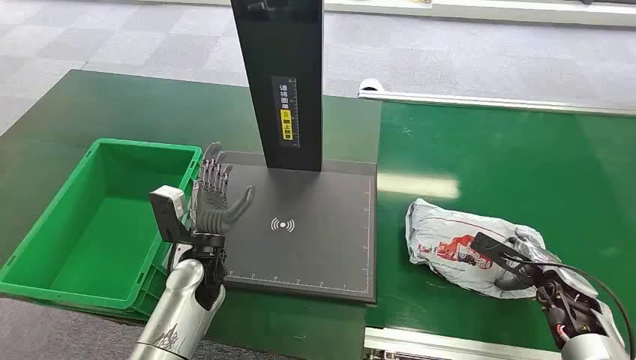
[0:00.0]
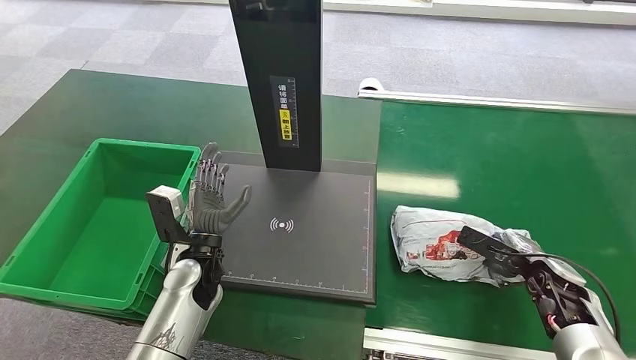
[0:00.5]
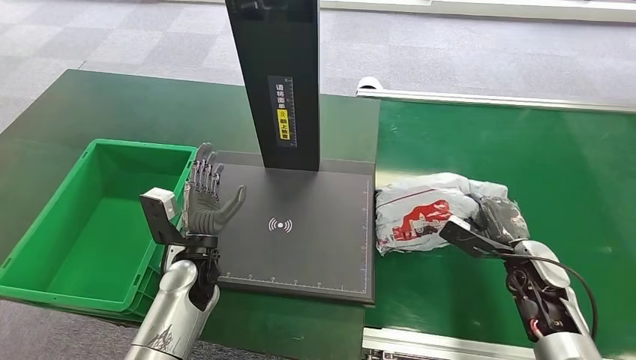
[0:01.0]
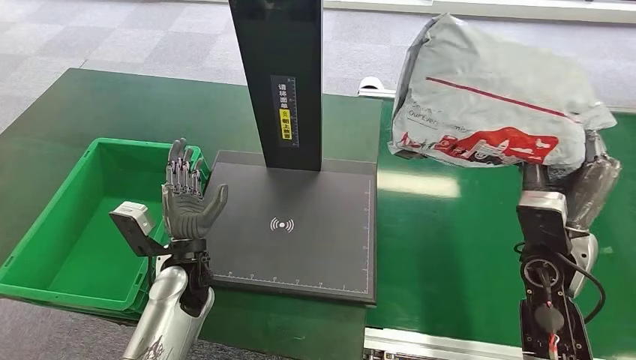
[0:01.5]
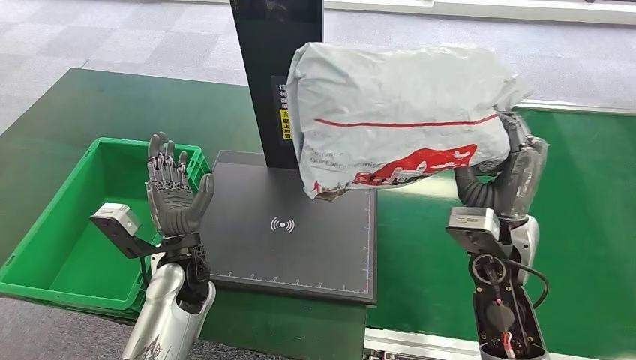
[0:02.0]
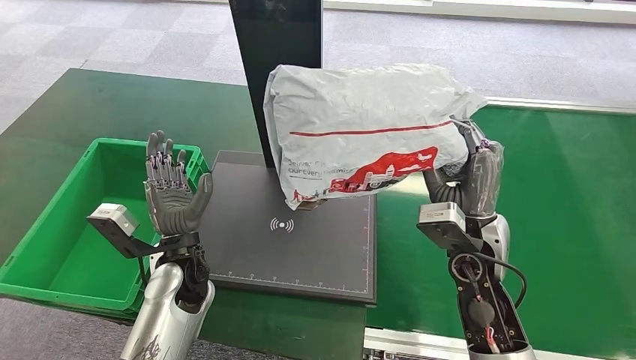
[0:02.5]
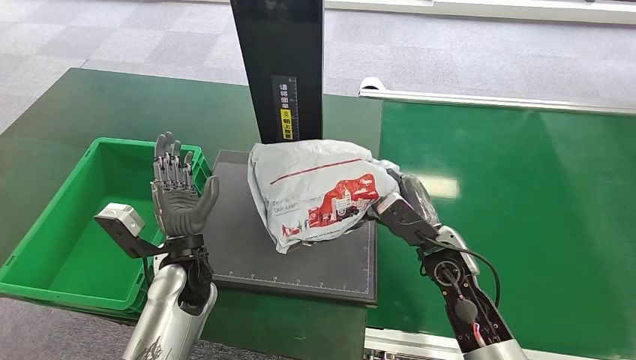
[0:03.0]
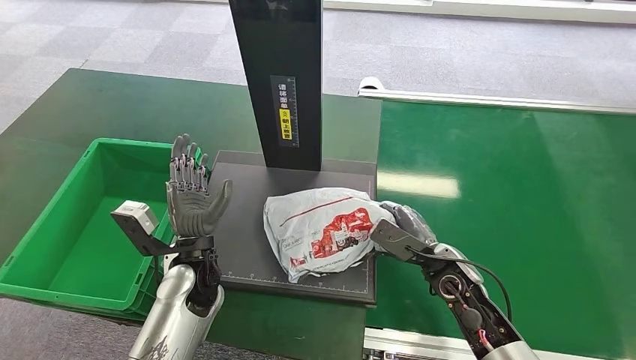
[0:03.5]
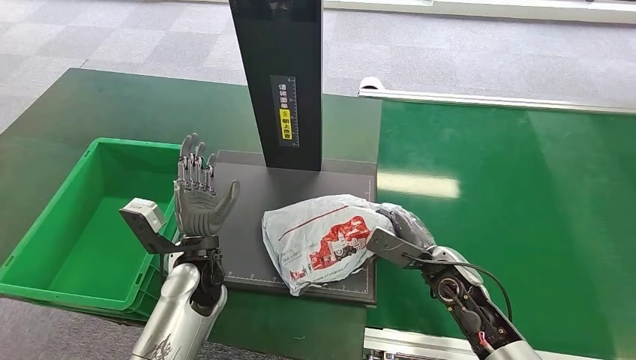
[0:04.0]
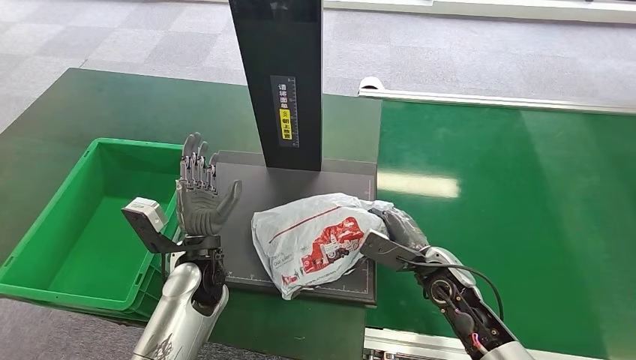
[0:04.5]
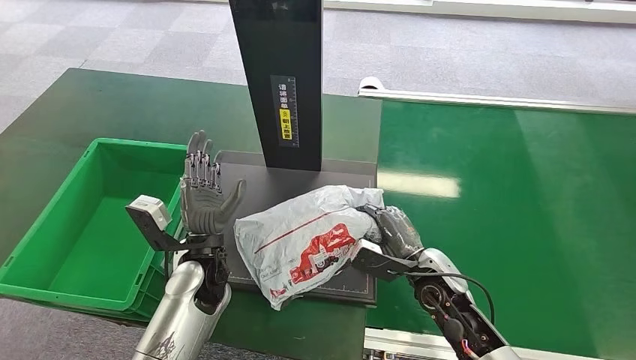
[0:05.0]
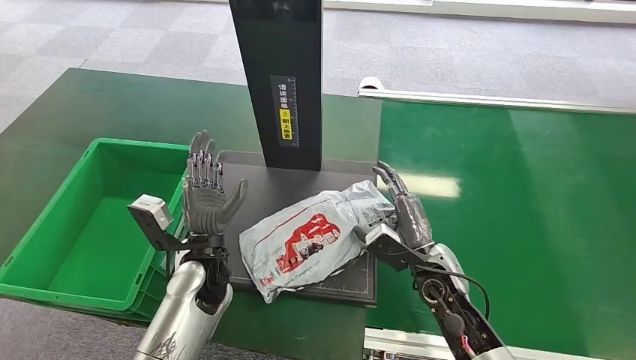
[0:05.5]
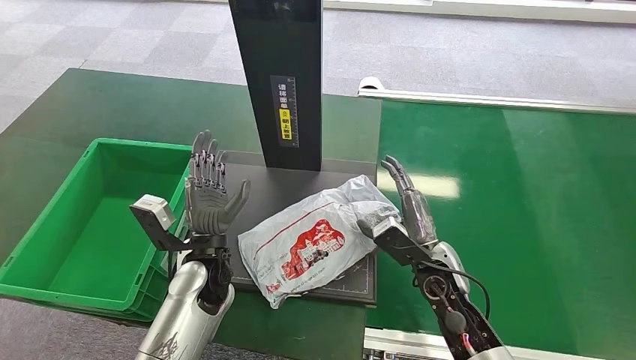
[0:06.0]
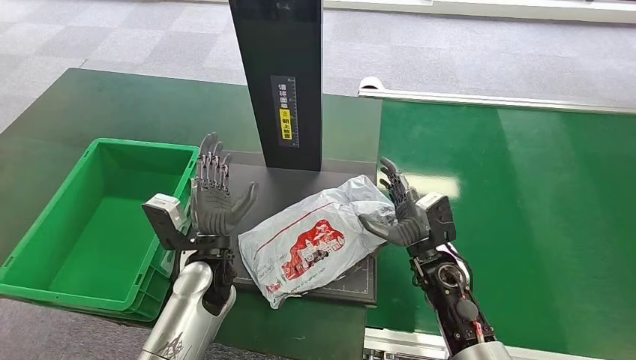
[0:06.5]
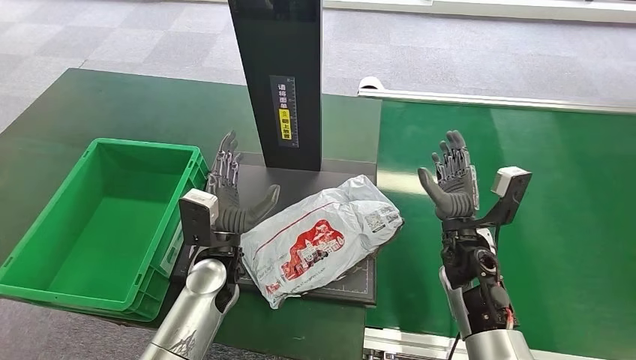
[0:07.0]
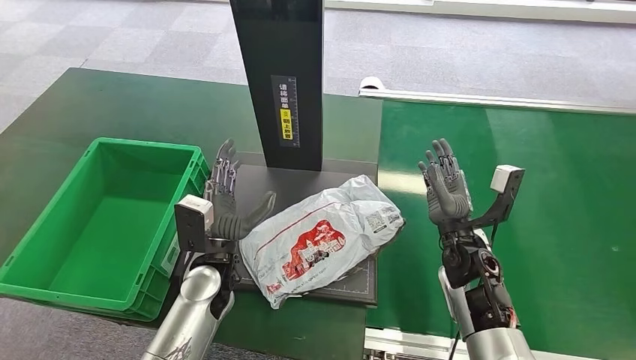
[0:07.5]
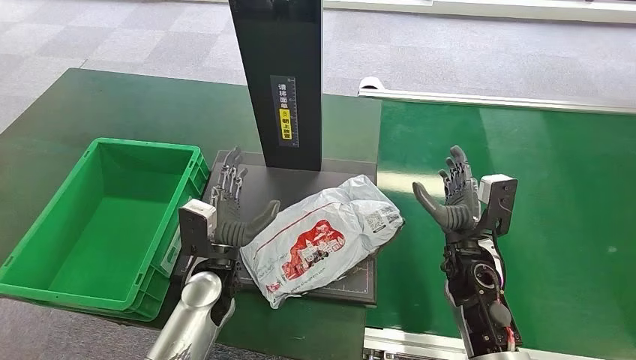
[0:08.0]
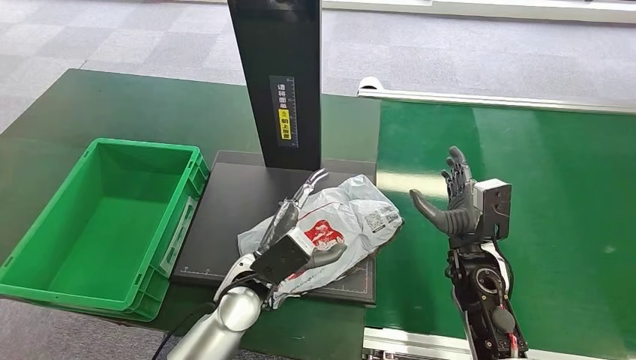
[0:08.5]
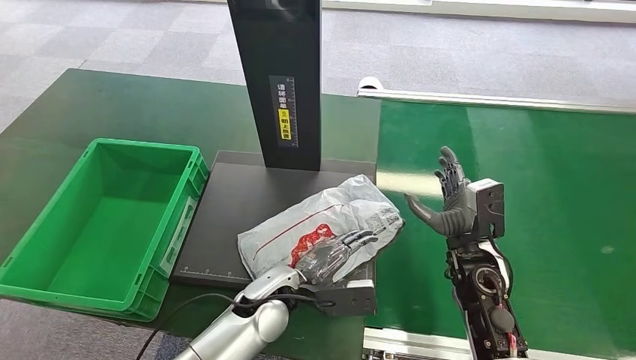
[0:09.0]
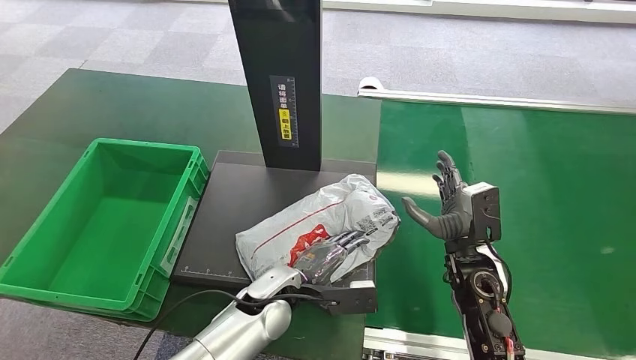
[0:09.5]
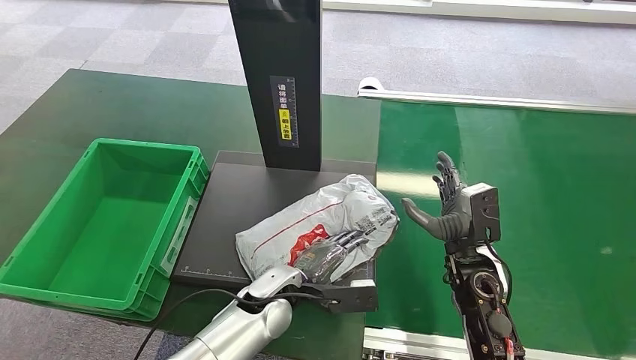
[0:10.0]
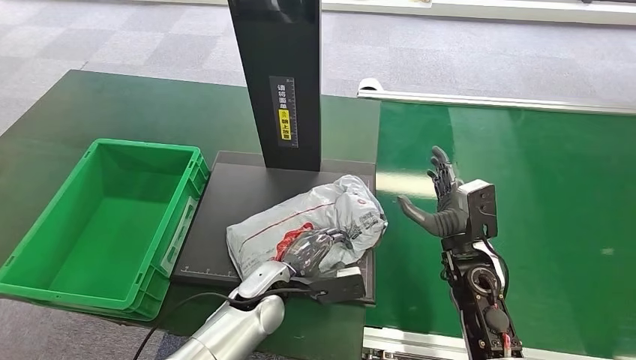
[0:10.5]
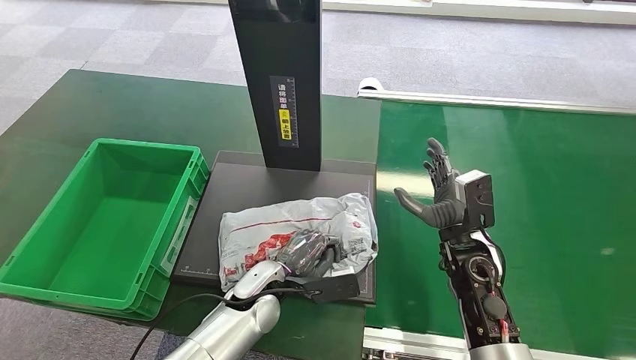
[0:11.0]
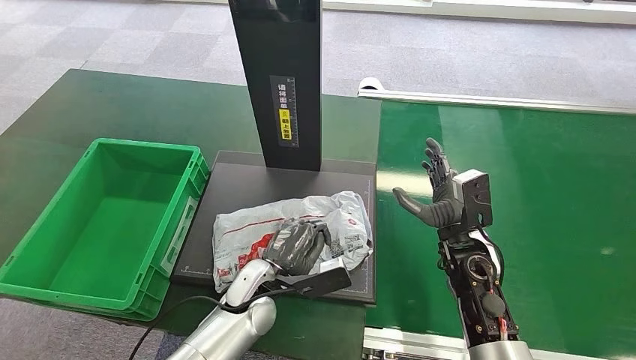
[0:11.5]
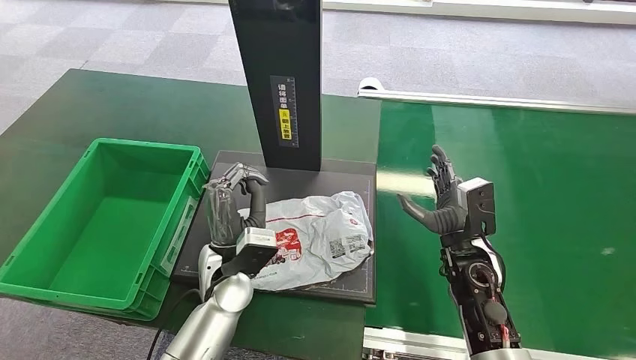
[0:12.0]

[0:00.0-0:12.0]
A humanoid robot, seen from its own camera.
Step, 0:00.0 to 0:01.5: Pick up the package from the conveyor belt.
Step, 0:02.0 to 0:07.0: Place the package onto the inbound machine.
0:08.0 to 0:10.0: The left hand heads to the right, covering about 10 cm.
0:10.0 to 0:12.0: The left hand shifts roughly 5 cm upward.

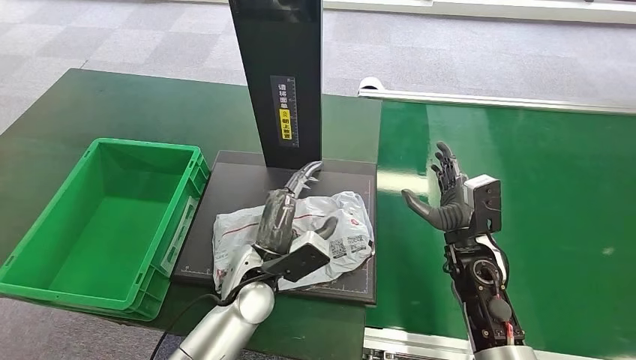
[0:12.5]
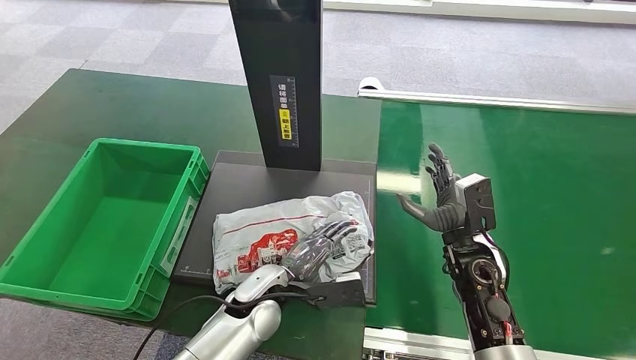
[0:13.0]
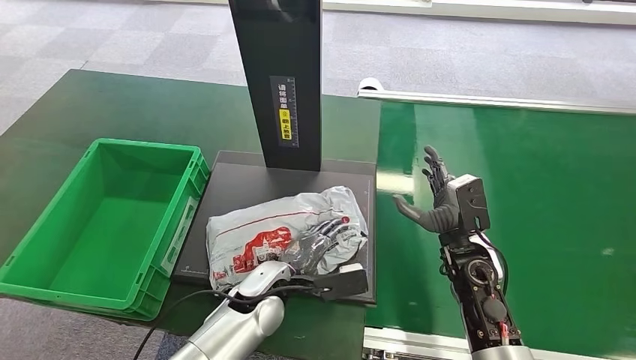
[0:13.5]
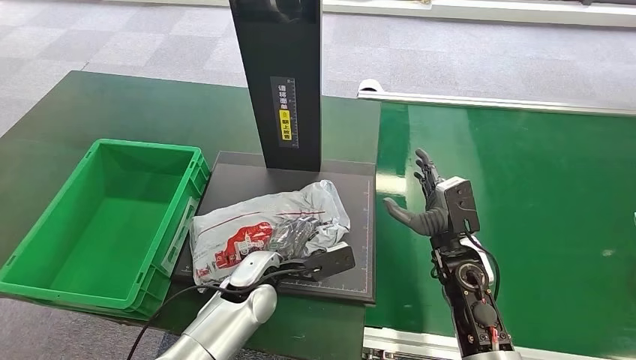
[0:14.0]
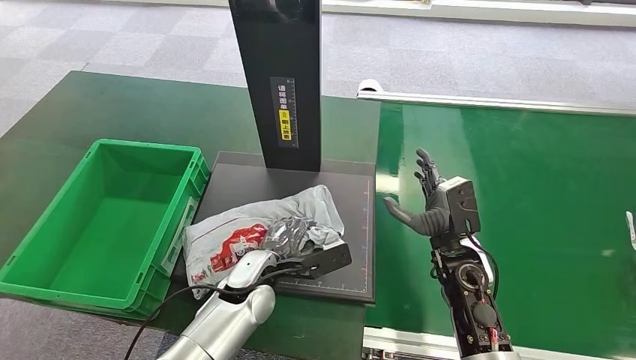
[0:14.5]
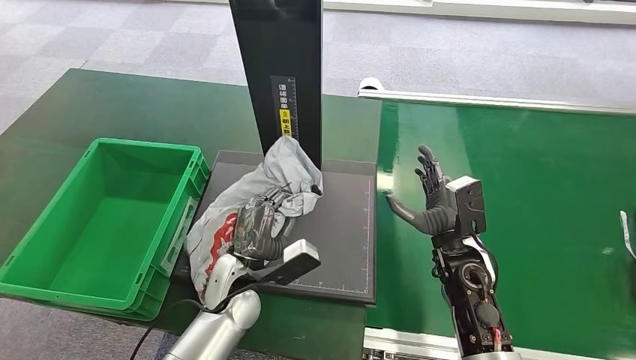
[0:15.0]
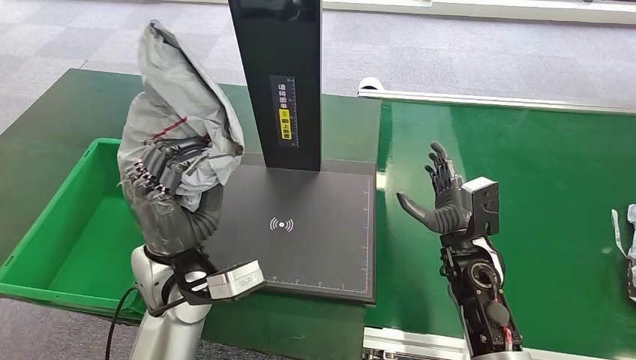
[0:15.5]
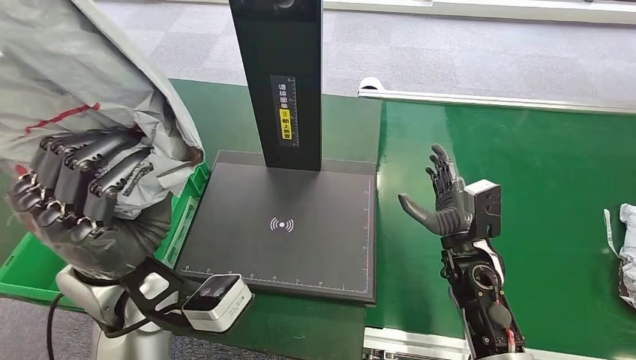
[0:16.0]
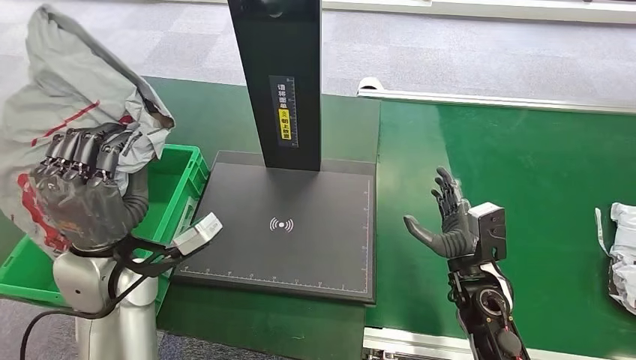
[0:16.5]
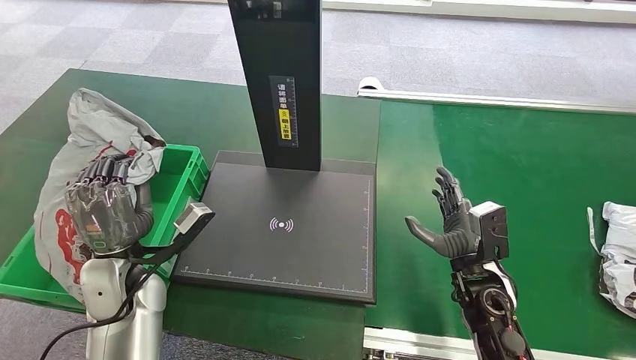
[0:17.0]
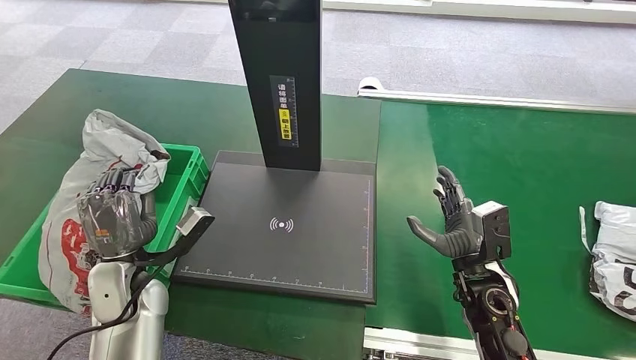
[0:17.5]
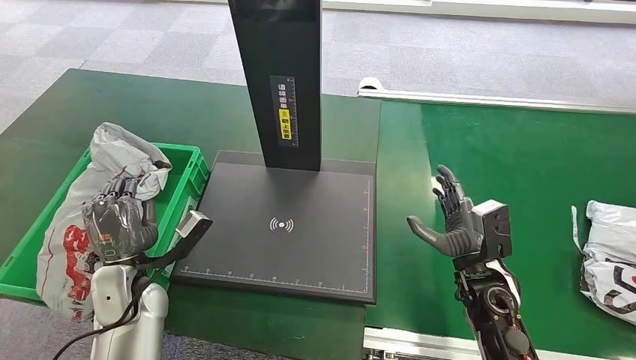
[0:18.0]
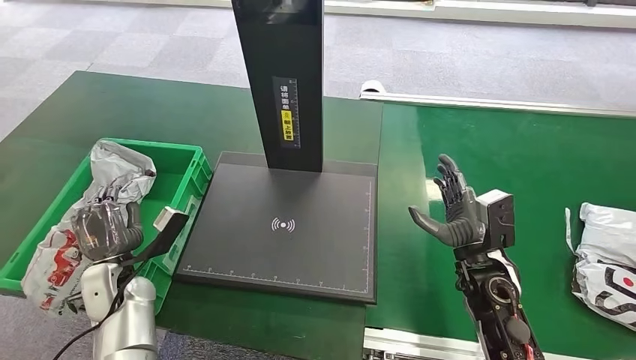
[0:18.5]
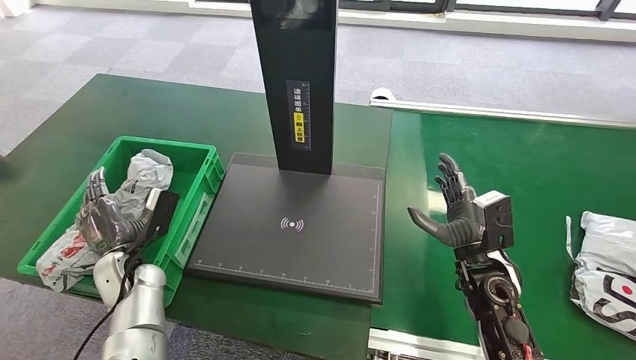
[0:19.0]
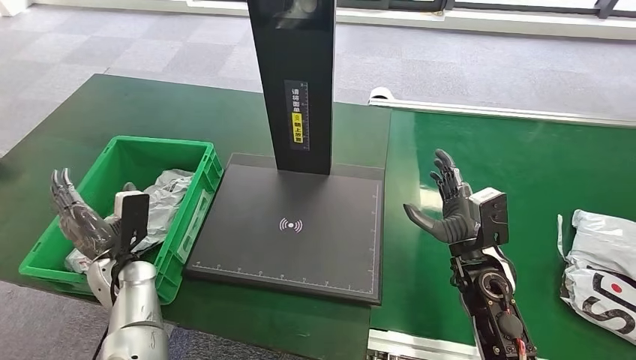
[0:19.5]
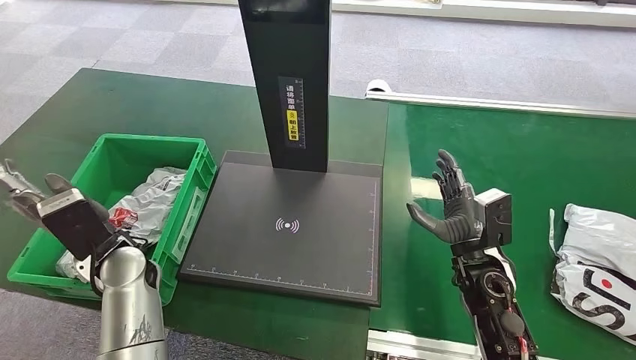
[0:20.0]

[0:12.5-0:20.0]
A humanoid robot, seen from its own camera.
Step, 0:12.5 to 0:15.0: Pick up the package from the inbound machine.
Step, 0:16.0 to 0:20.0: Place the package into the parcel locker.

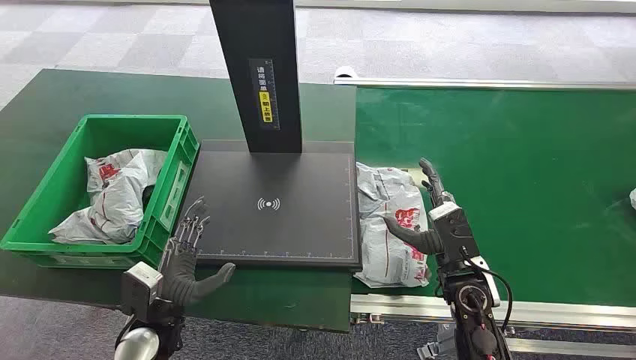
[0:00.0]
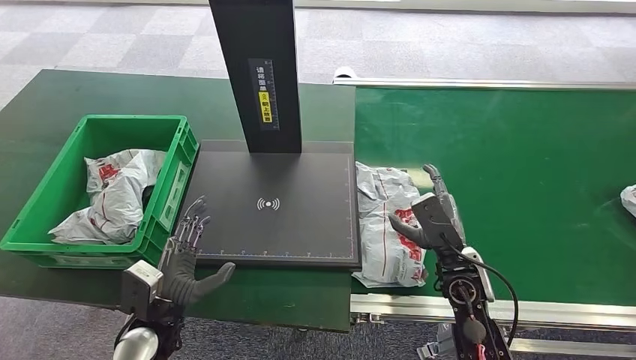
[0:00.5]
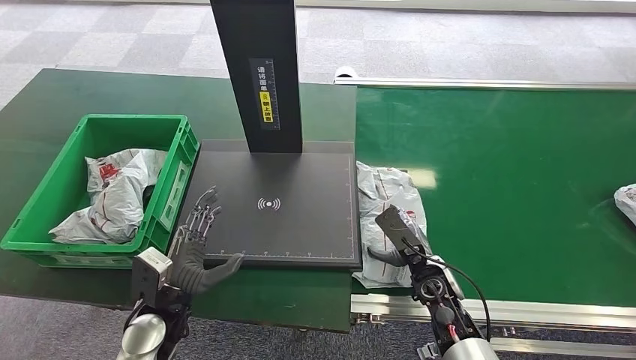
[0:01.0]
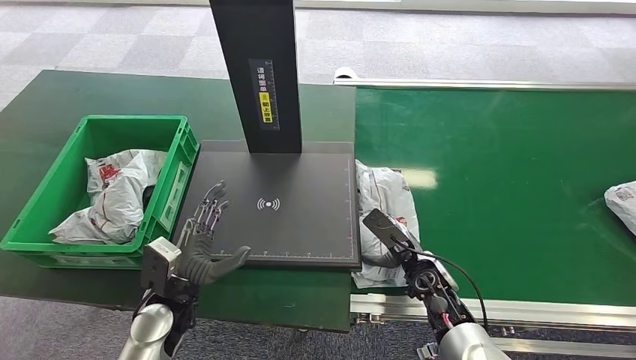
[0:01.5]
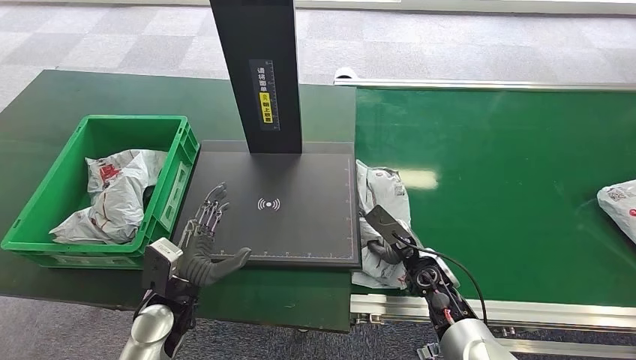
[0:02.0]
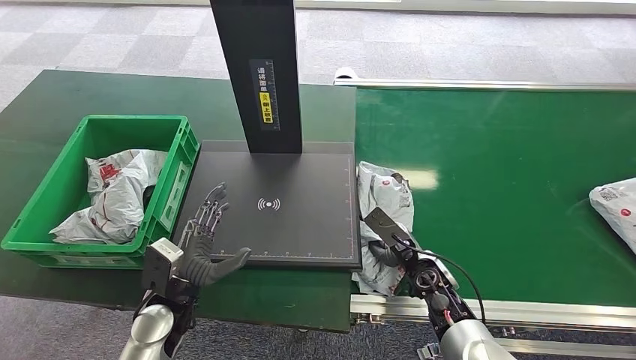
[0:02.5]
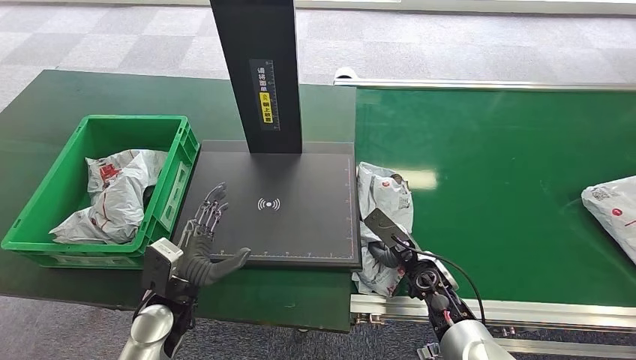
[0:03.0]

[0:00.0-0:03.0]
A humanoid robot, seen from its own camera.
0:01.5 to 0:03.0: Both hands stay put.
